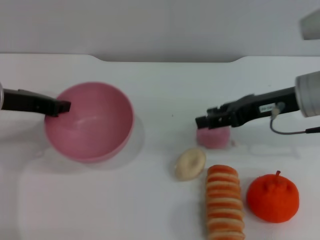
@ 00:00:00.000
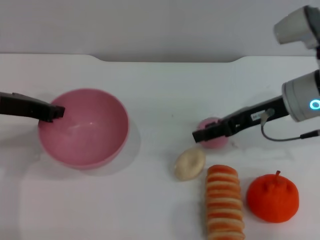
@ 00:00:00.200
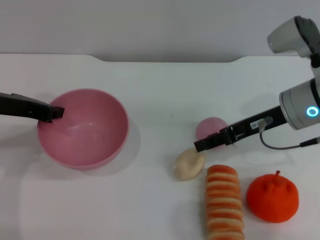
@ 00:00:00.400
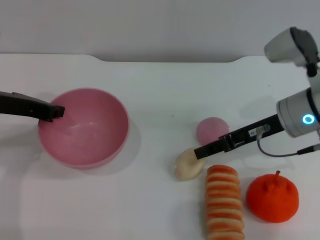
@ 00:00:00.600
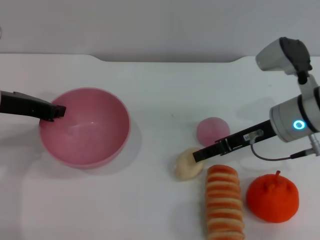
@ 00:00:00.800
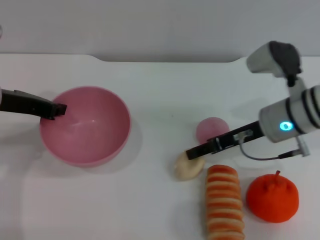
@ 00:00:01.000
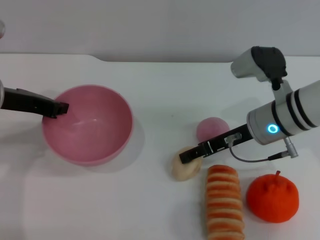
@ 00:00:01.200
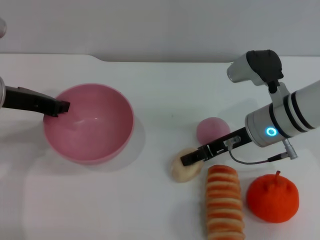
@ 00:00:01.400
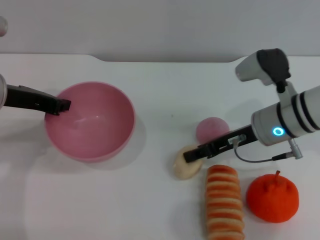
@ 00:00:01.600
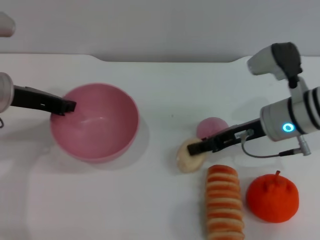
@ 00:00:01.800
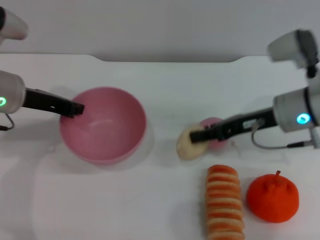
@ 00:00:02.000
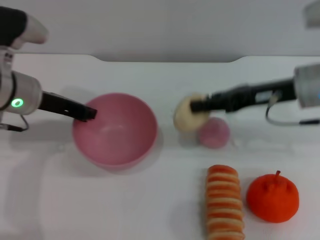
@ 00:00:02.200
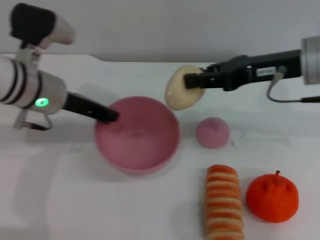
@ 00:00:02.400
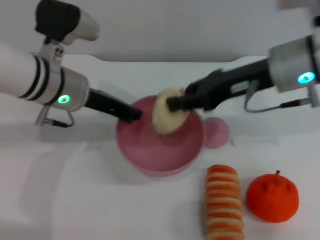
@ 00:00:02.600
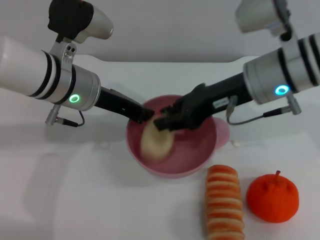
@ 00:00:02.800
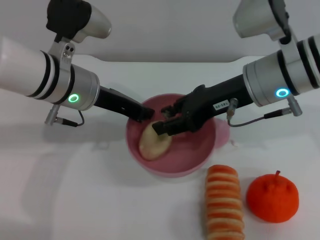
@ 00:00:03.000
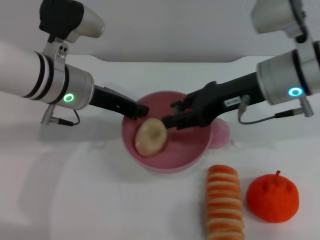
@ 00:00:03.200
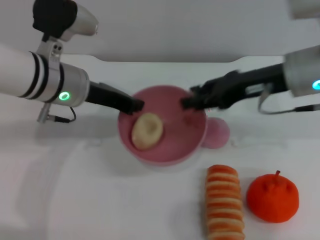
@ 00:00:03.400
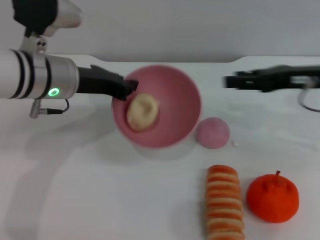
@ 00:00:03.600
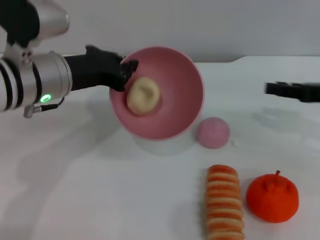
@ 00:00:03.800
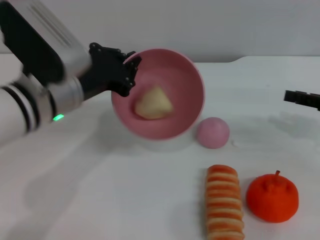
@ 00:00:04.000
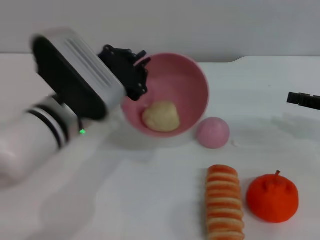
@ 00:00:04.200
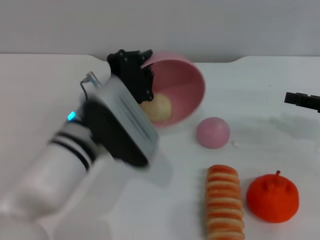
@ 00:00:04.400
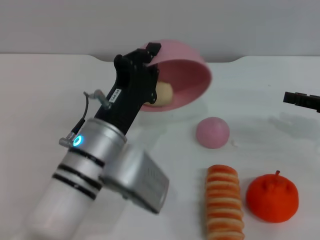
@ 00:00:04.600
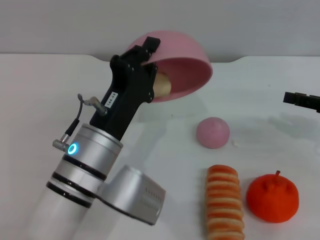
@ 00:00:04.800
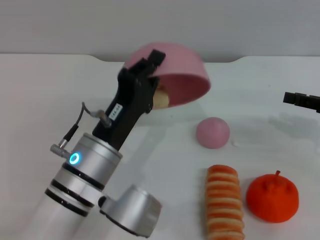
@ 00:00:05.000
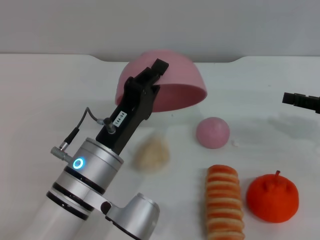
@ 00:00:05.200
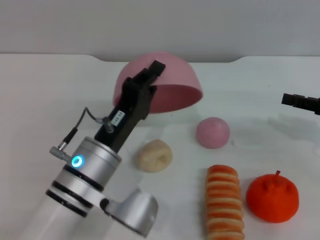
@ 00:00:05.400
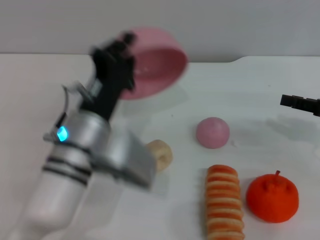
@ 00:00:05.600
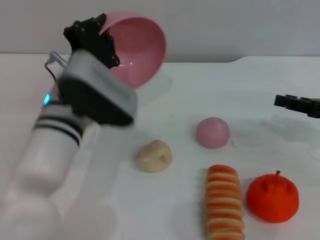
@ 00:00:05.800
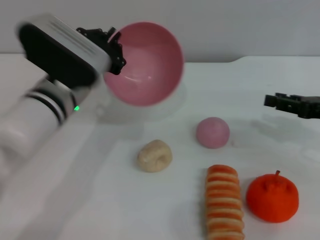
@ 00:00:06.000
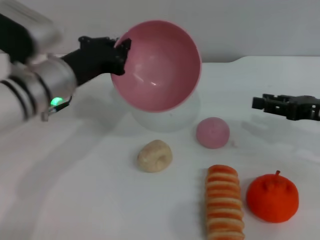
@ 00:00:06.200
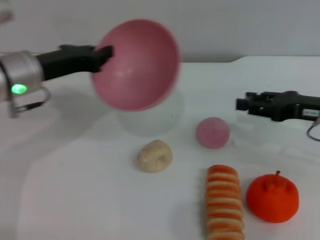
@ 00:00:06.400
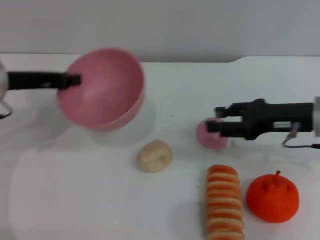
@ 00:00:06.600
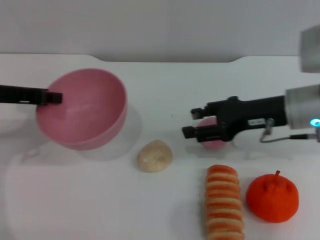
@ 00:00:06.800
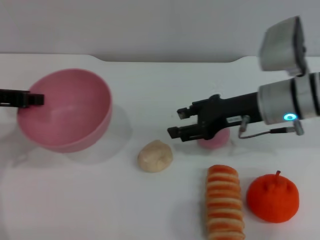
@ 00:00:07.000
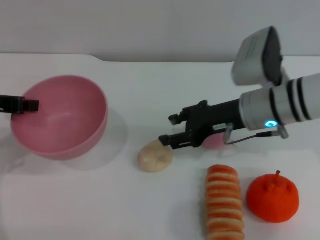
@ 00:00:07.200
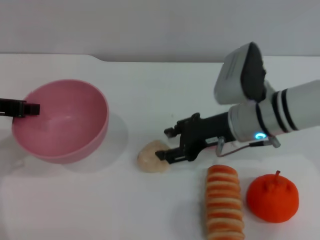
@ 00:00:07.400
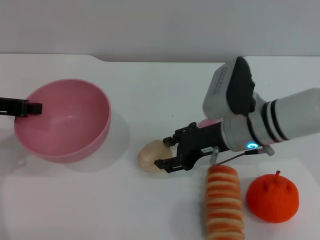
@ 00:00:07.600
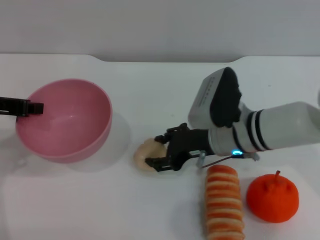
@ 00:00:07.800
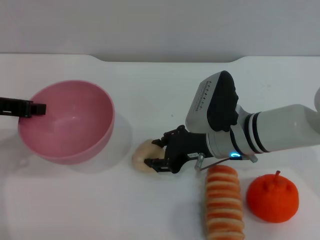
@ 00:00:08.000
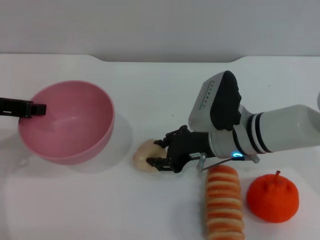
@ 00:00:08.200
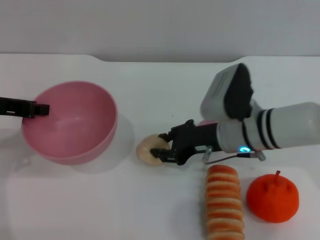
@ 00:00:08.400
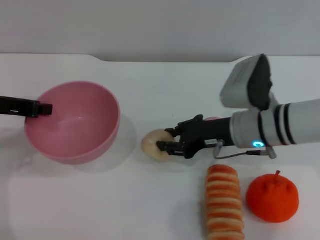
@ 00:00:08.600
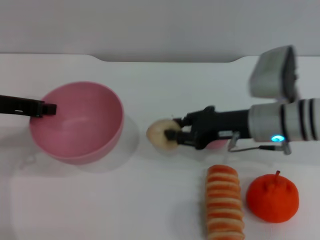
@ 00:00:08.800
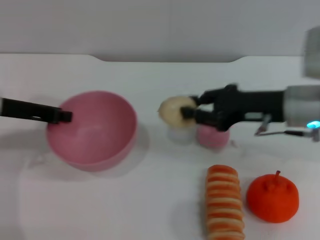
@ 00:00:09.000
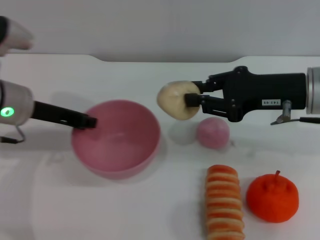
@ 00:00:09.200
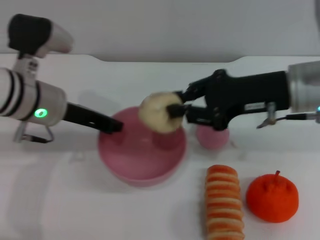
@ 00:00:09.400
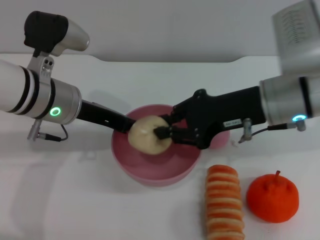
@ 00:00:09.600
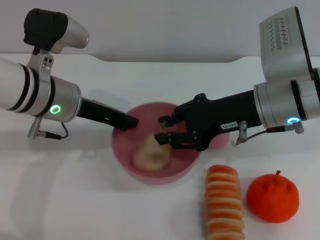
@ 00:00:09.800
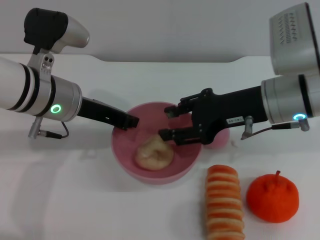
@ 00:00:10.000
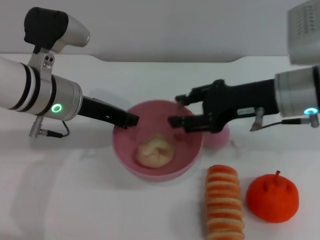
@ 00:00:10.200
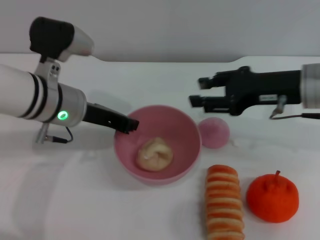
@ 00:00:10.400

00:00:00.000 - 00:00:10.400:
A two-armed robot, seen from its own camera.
Task of the whole recording: put the egg yolk pastry into the pink bowl and pour it out repeatedly.
Step, 00:00:00.000 - 00:00:02.000: Pick up the egg yolk pastry with the right gripper.
Step, 00:00:02.200 - 00:00:03.200: Place the egg yolk pastry into the bowl.
Step, 00:00:03.400 - 00:00:05.200: Pour the egg yolk pastry out of bowl.
Step, 00:00:05.400 - 00:00:08.800: Pick up the egg yolk pastry with the right gripper.
Step, 00:00:09.000 - 00:00:10.200: Place the egg yolk pastry into the bowl.
00:00:00.000 - 00:00:01.400: The right gripper goes roughly 5 cm downward.
00:00:01.400 - 00:00:03.000: The right gripper is displaced upward by some 10 cm, and closes; the left gripper goes roughly 10 cm to the right.
00:00:03.000 - 00:00:04.400: The right gripper is displaced to the right by some 20 cm, and opens its fingers; the left gripper is displaced backward by about 10 cm.
00:00:04.400 - 00:00:06.000: The left gripper shifts by approximately 5 cm.
00:00:06.000 - 00:00:07.400: Both grippers travel together to the left, approximately 15 cm.
00:00:07.400 - 00:00:09.000: The right gripper goes some 5 cm to the right, and closes its fingers.
00:00:09.000 - 00:00:10.400: The right gripper opens. Meanwhile the left gripper heads to the right, covering about 10 cm.

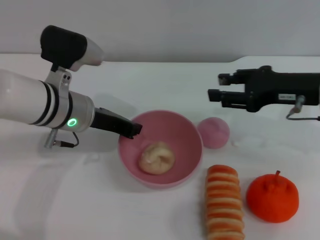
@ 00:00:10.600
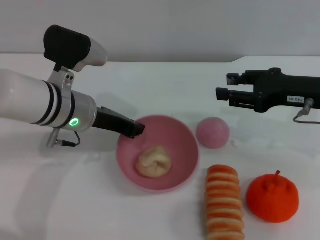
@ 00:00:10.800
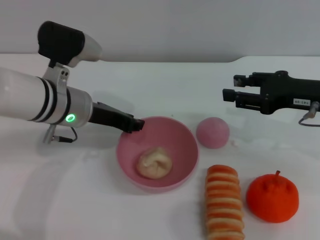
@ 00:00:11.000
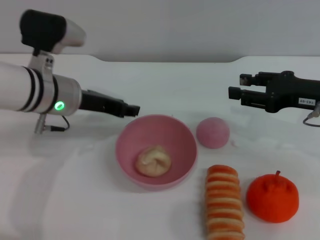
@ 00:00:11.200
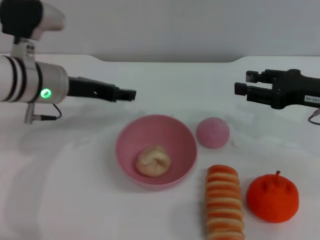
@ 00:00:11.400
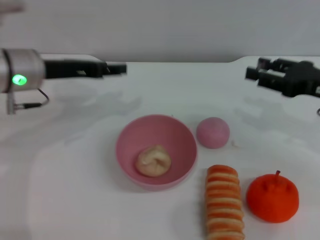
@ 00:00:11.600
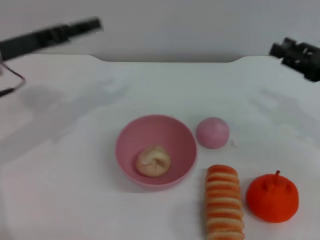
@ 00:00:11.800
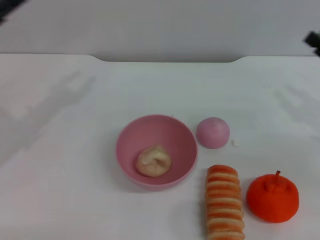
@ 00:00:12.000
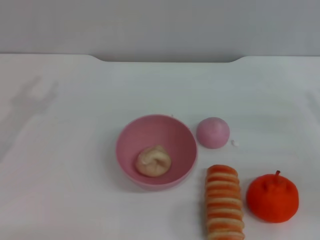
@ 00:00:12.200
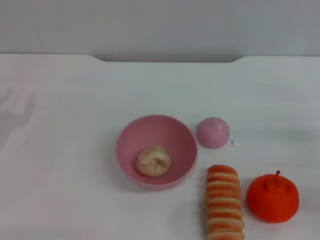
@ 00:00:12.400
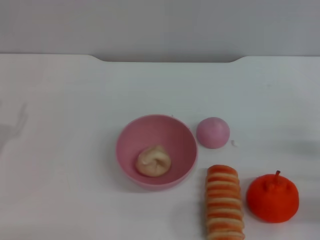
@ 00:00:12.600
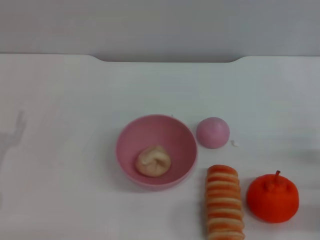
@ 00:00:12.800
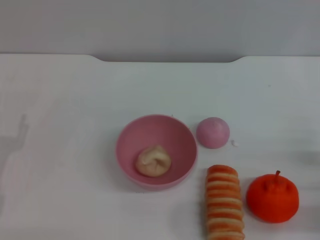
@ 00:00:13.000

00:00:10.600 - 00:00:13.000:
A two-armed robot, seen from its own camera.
Task of the whole recording: put the egg yolk pastry into the pink bowl and pour it out repeatedly.
Step, 00:00:10.600 - 00:00:11.200: Place the bowl on the table.
00:00:10.600 - 00:00:11.800: The left gripper goes roughly 10 cm to the left and upward, and opens its fingers; the right gripper heads to the right, covering about 5 cm.
00:00:11.800 - 00:00:13.000: The left gripper travels downward, backward and to the left by roughly 20 cm; the right gripper shifts roughly 15 cm downward and backward.
